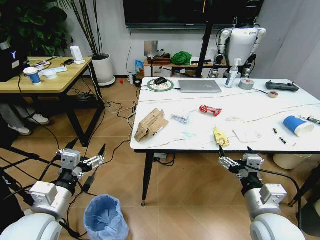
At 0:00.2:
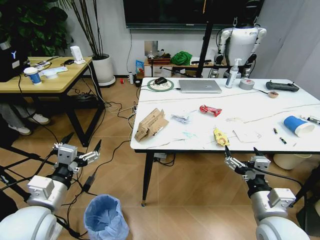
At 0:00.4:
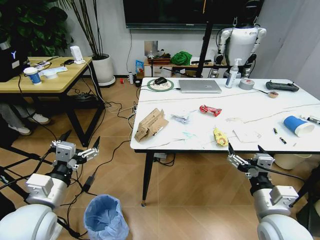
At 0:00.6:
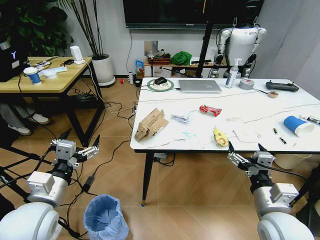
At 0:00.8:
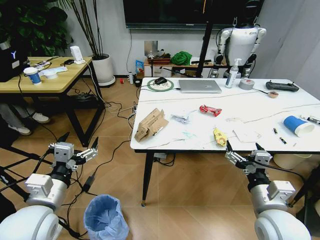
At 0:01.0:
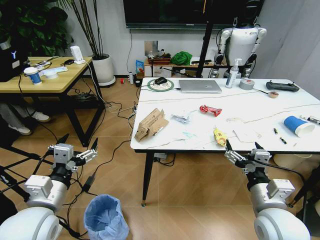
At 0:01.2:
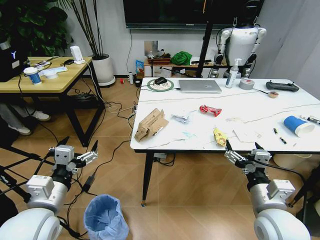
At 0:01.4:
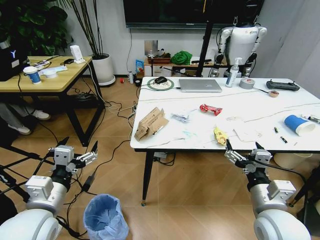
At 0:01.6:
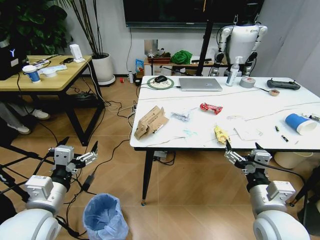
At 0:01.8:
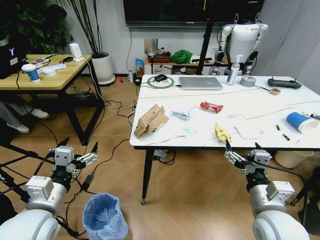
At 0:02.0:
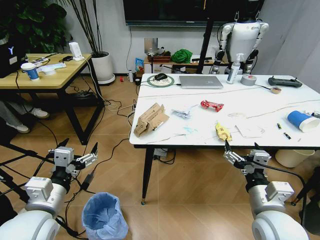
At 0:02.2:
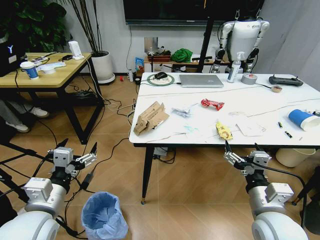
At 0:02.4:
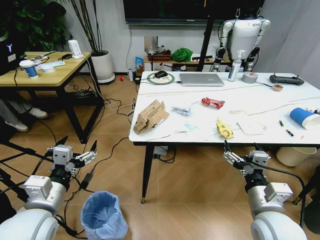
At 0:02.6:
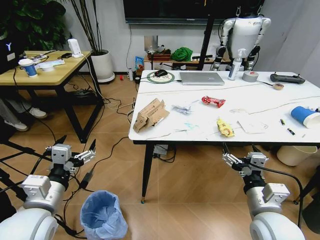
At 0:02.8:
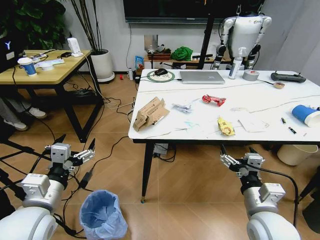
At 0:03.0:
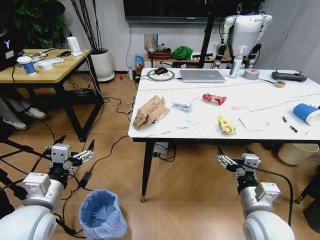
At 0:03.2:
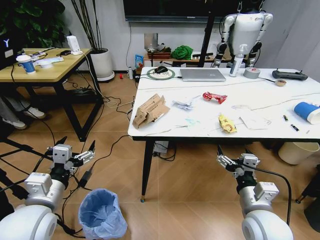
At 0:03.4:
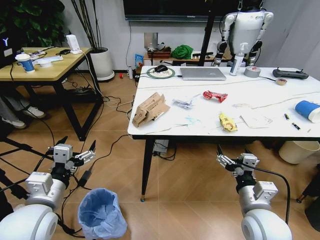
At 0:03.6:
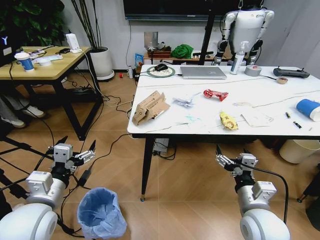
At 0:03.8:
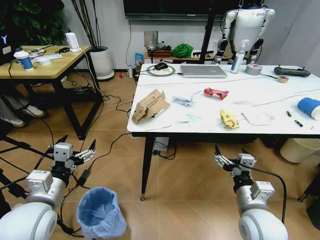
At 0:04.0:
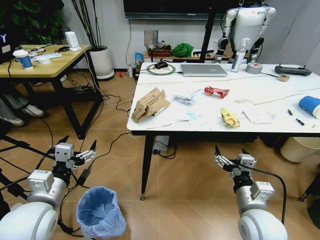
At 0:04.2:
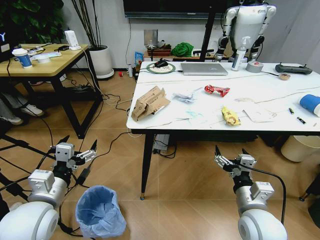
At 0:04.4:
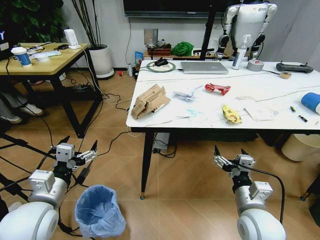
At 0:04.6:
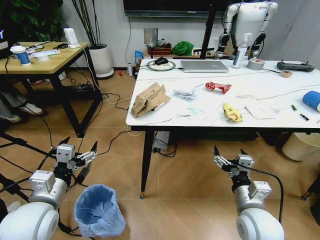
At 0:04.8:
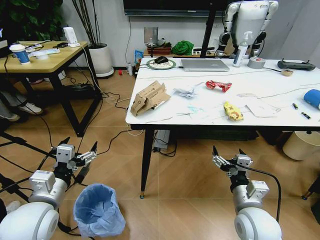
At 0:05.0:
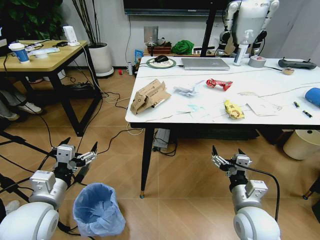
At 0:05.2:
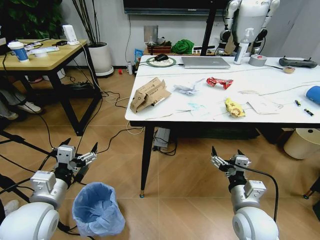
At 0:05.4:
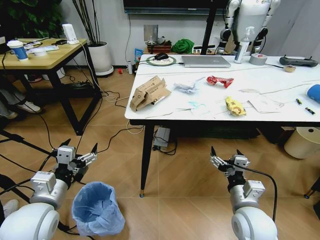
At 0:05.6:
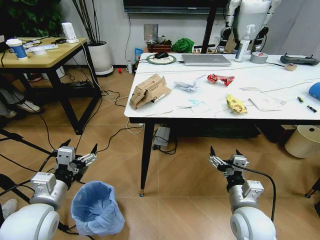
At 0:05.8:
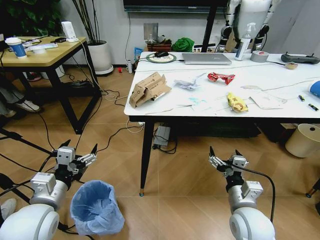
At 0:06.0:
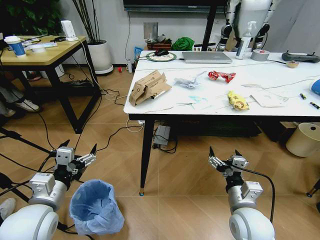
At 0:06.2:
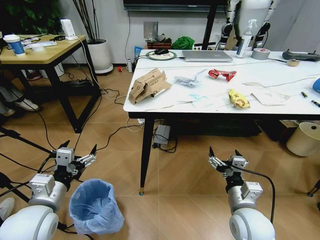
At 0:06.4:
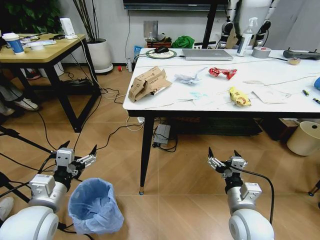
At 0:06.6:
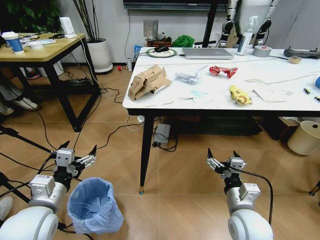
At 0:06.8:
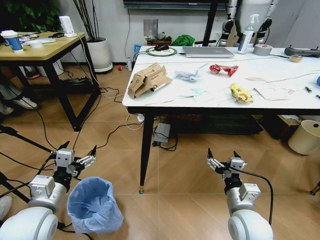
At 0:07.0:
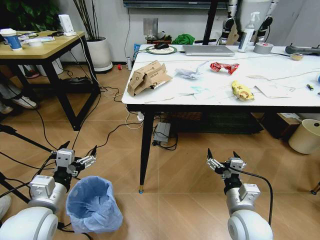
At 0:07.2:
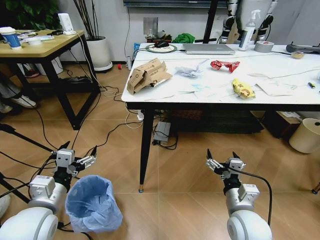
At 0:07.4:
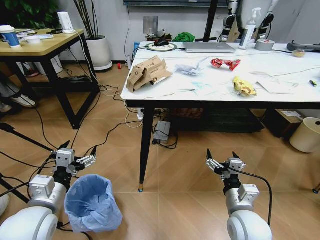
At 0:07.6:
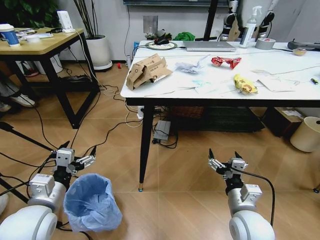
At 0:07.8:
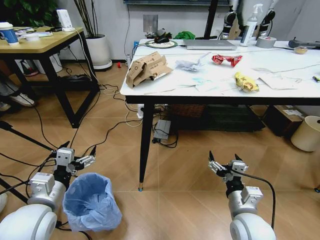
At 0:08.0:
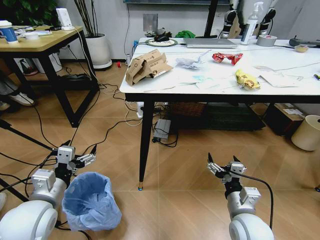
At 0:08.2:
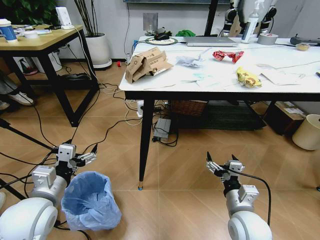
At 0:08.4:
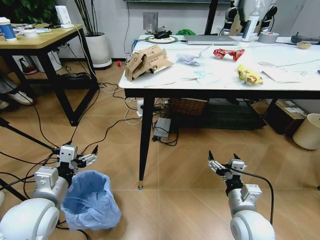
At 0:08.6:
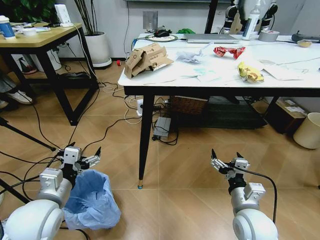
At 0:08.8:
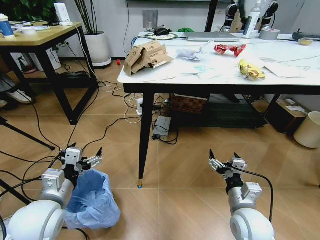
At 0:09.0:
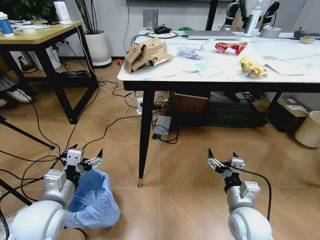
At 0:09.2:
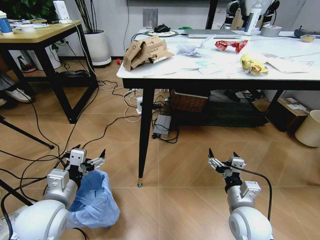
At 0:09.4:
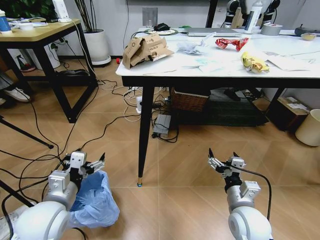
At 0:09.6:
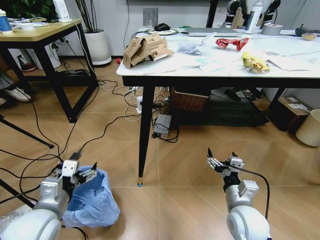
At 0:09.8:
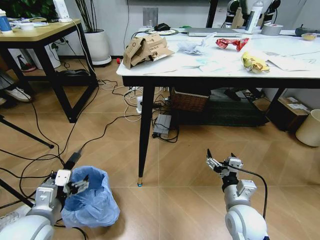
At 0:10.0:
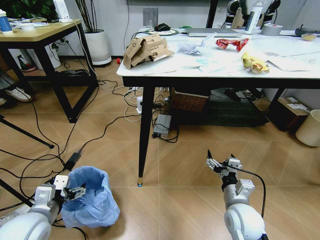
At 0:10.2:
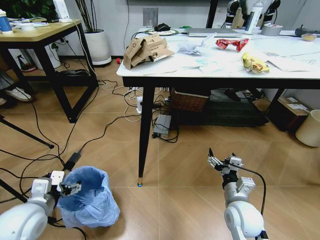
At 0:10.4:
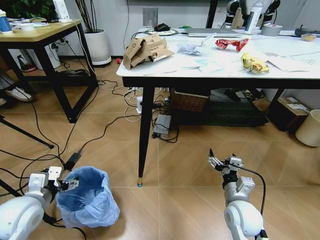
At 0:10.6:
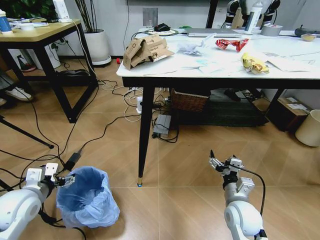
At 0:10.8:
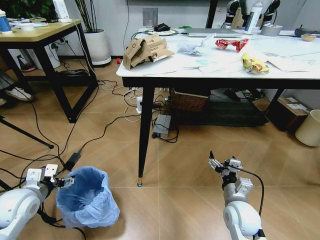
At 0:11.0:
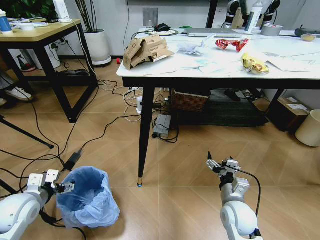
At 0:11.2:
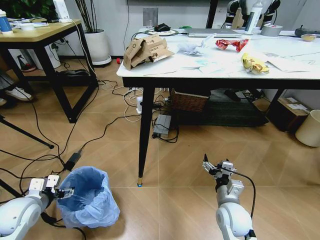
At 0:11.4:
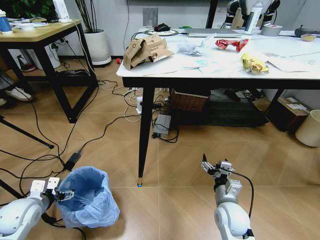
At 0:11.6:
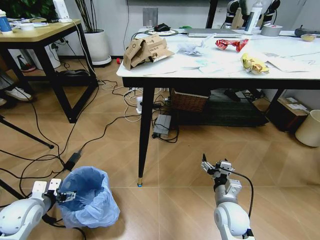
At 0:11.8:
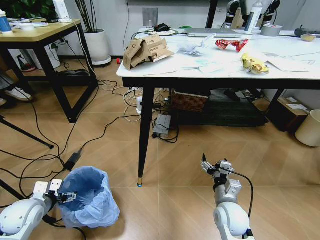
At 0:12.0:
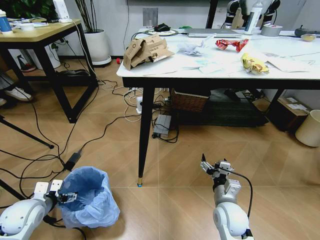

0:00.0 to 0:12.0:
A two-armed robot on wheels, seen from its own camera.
Task of the whole recording: Pick up the trash bin and place the trash from the table into it.
0:09.0 to 0:10.4: The left gripper travels to the left by roughly 10 cm.
0:10.4 to 0:12.0: The left gripper travels downward and to the left by approximately 10 cm.

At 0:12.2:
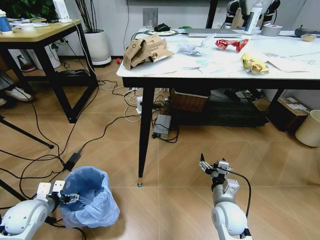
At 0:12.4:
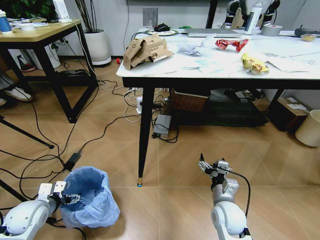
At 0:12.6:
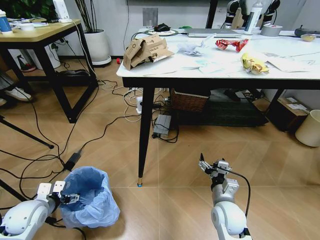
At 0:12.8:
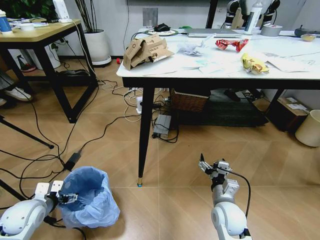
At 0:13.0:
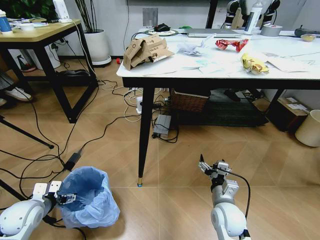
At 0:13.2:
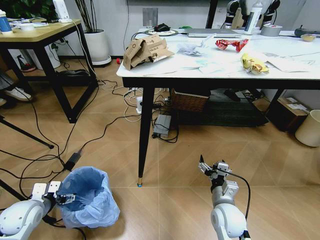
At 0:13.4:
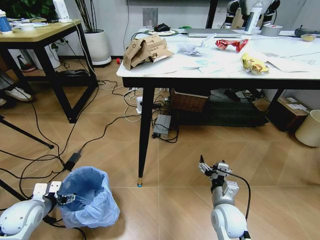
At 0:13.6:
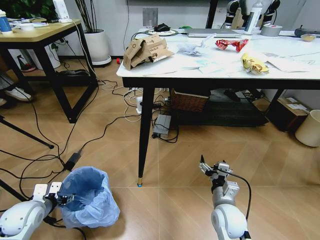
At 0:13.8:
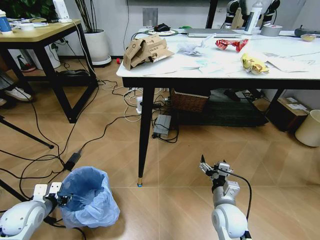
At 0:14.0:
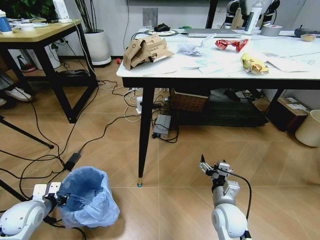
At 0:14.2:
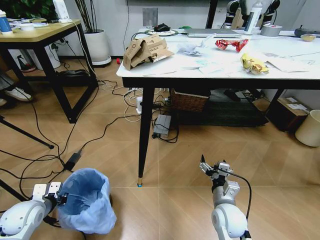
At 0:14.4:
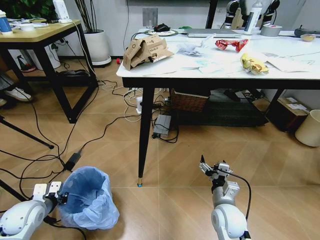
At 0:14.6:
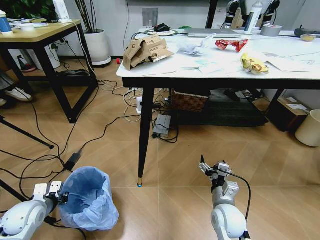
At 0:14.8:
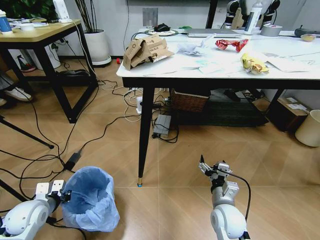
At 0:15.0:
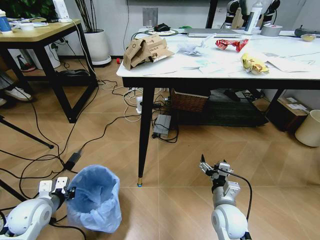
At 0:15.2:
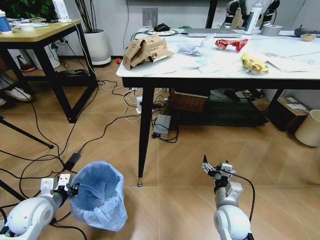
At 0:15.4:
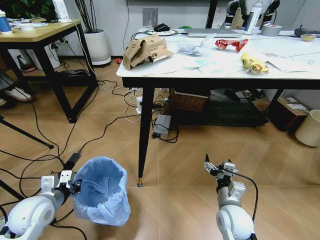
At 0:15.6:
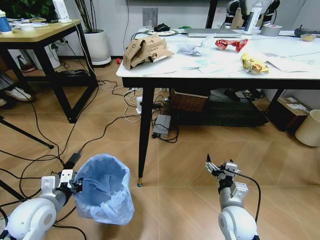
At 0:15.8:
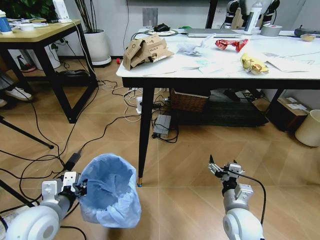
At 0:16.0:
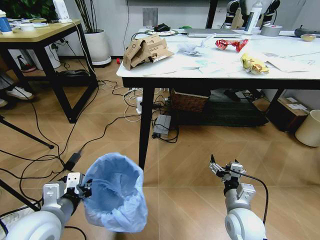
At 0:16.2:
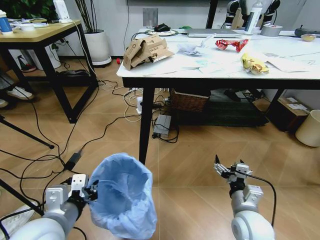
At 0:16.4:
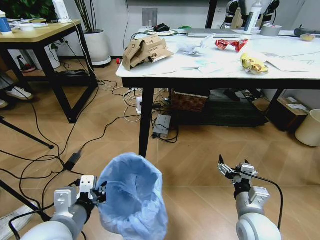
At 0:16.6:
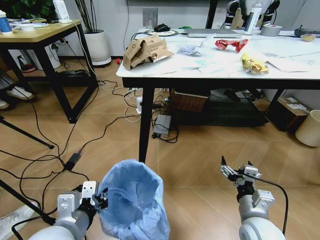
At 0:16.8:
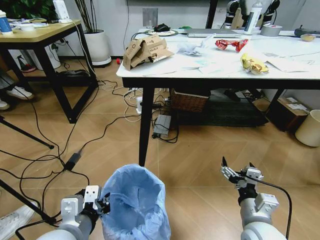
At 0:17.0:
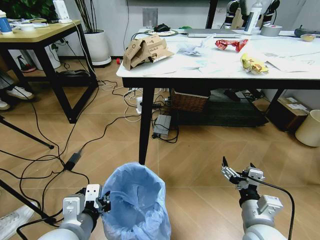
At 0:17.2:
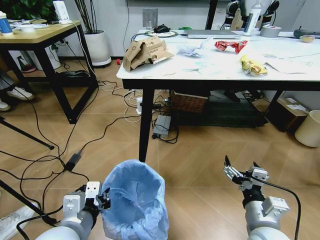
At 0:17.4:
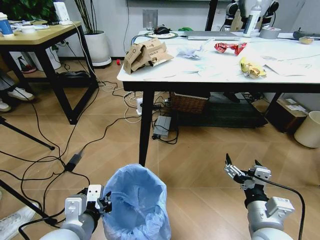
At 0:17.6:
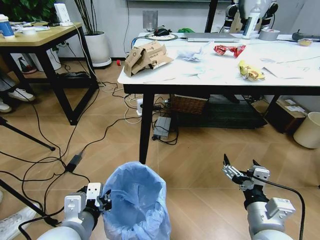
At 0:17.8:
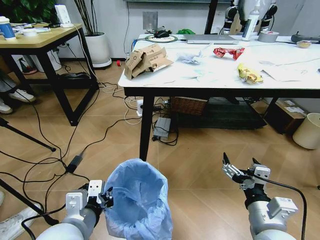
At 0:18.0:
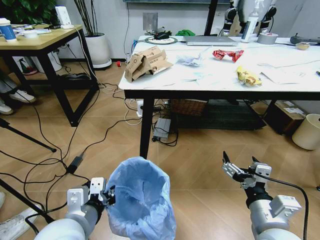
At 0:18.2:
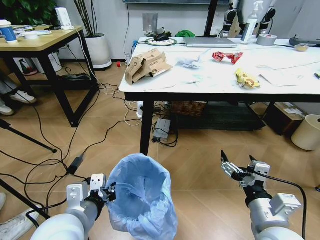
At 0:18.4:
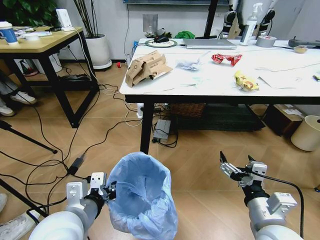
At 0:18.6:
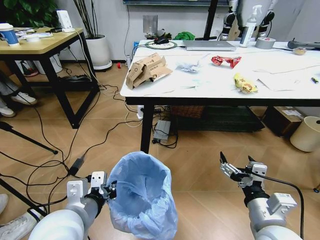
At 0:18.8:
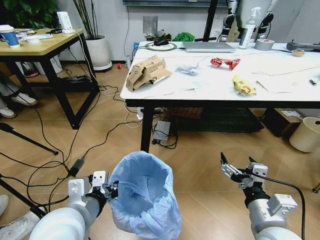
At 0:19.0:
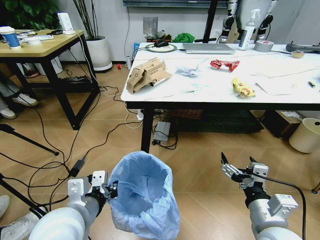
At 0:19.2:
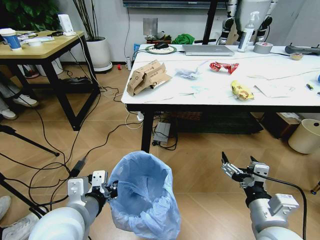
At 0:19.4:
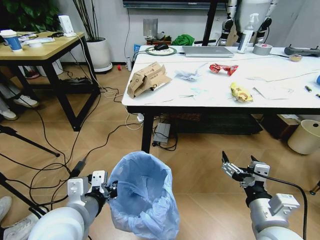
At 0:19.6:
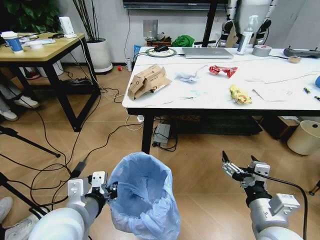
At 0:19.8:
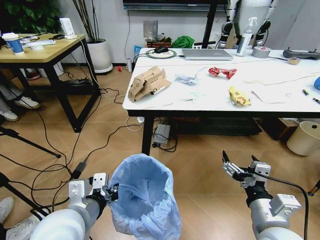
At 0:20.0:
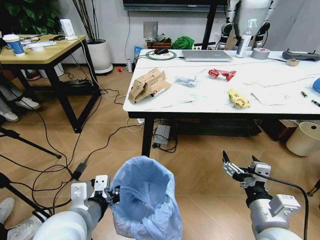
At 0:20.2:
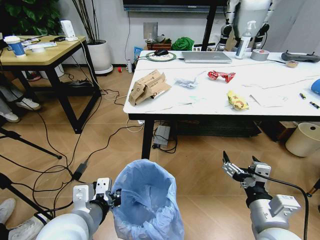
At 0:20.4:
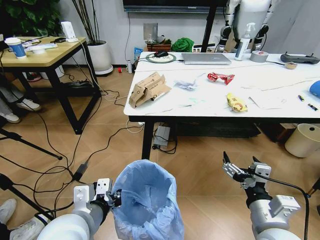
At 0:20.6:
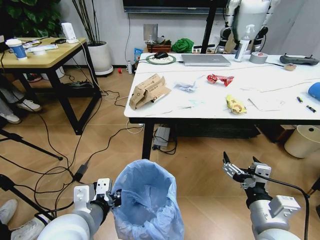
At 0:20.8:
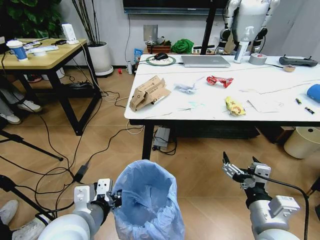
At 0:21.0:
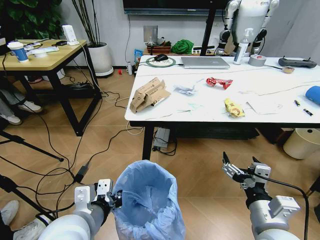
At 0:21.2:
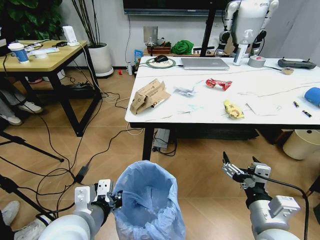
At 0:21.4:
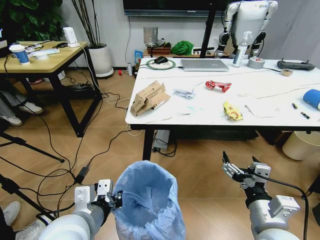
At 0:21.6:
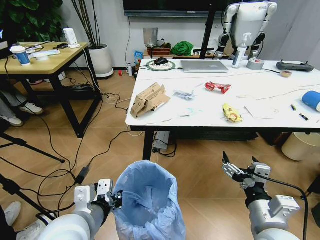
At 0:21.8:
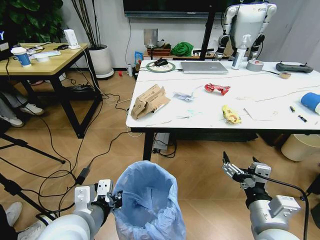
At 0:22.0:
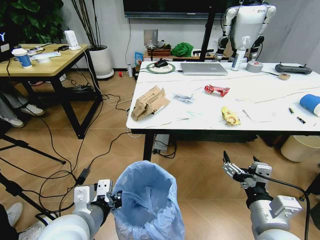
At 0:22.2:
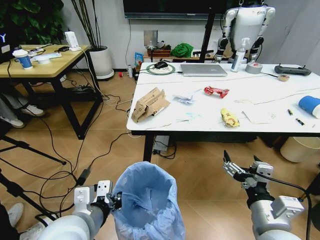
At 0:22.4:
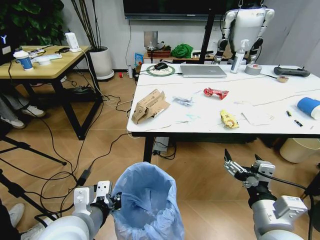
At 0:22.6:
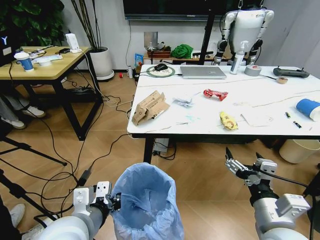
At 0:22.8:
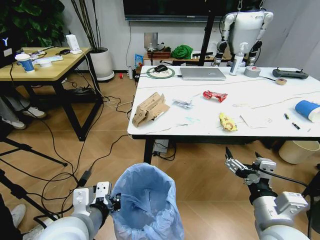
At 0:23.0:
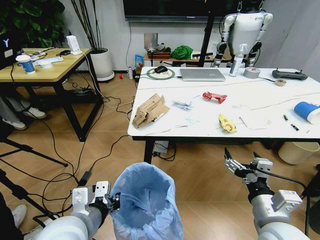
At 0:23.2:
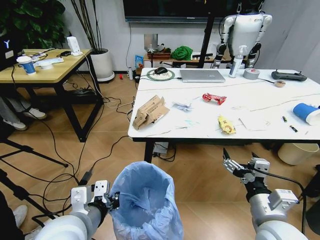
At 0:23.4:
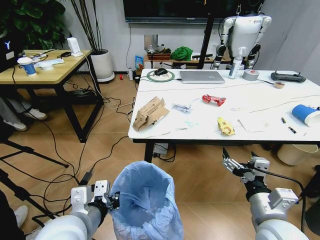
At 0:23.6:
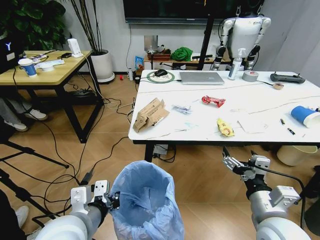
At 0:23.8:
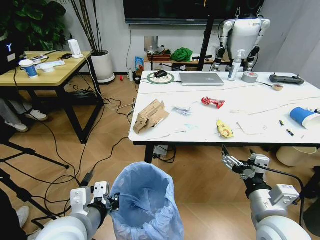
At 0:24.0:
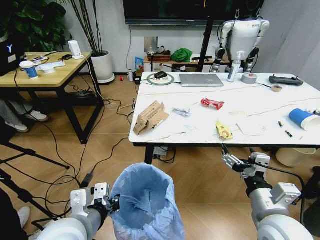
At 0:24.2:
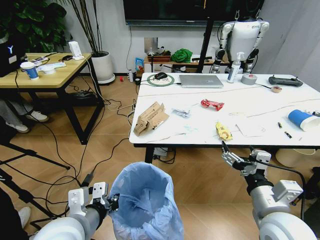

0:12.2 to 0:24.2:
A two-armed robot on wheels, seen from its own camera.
Task of the whole recording: Pick up the trash bin and place the trash from the table into it.
0:12.2 to 0:13.8: The left gripper closes.
0:13.8 to 0:15.2: The left gripper changes place by roughly 5 cm, and closes up.
0:15.2 to 0:16.6: The left gripper shifts about 20 cm to the right, upward and backward; the right gripper shifts roughly 10 cm upward and backward.
0:16.6 to 0:18.2: The right gripper goes some 5 cm upward.
